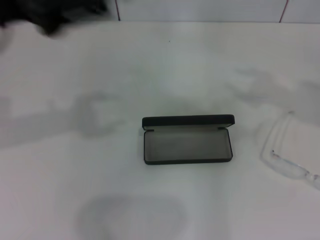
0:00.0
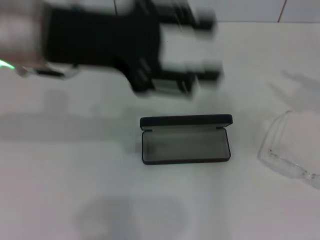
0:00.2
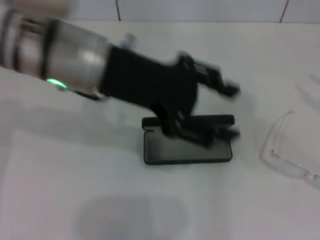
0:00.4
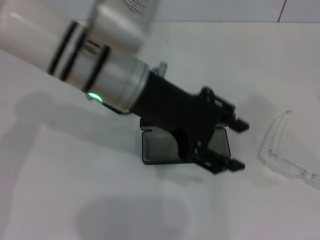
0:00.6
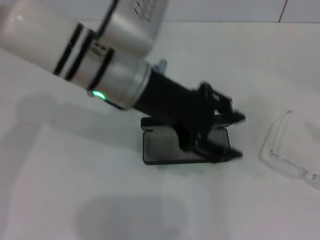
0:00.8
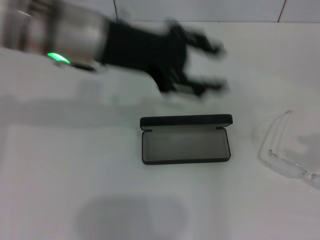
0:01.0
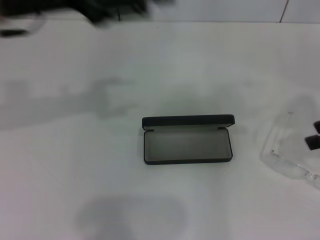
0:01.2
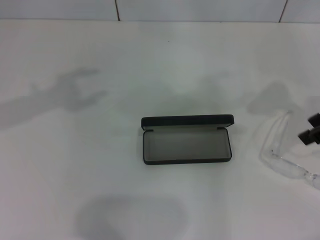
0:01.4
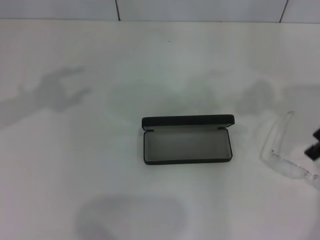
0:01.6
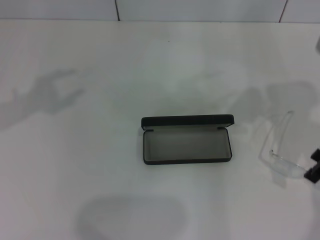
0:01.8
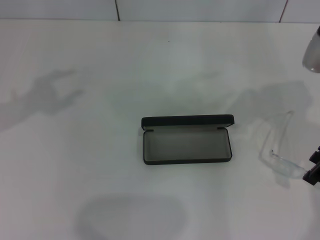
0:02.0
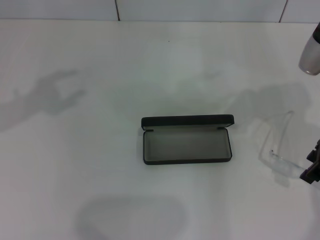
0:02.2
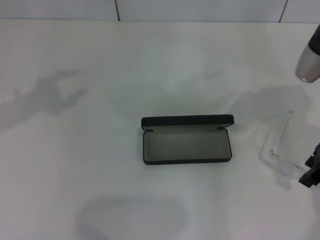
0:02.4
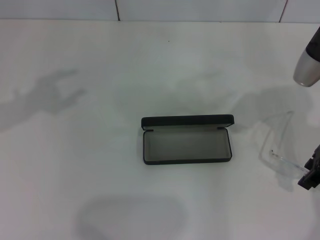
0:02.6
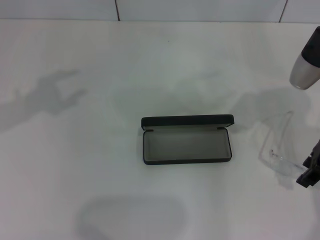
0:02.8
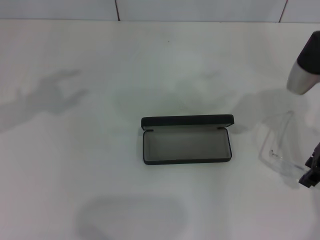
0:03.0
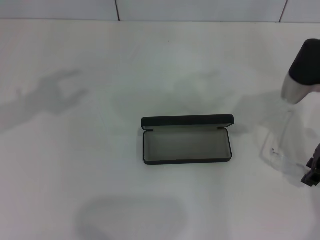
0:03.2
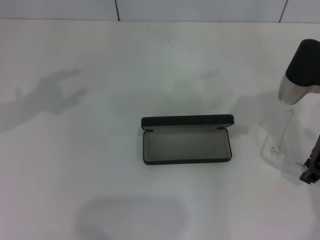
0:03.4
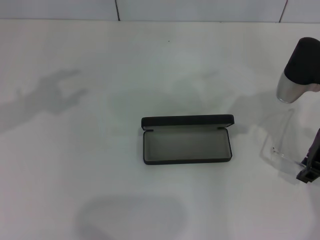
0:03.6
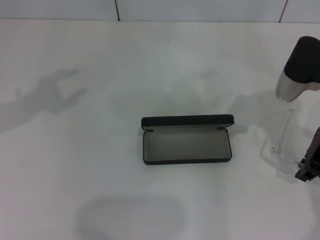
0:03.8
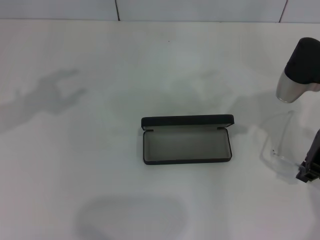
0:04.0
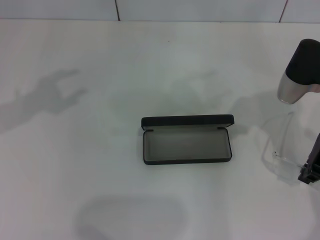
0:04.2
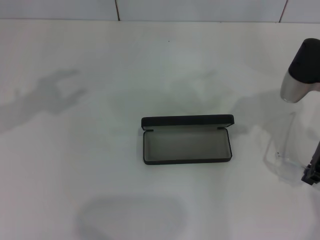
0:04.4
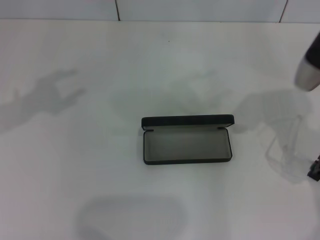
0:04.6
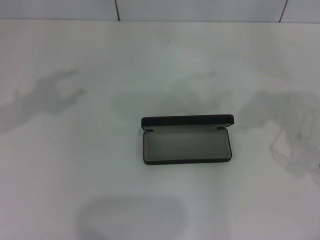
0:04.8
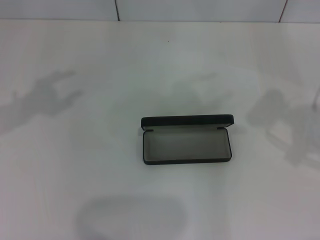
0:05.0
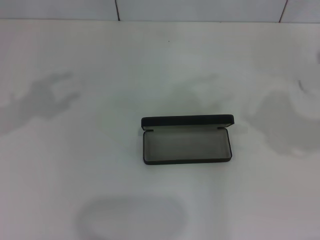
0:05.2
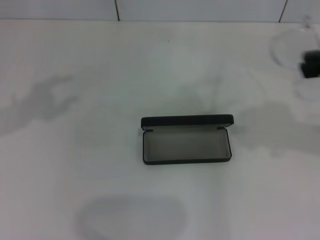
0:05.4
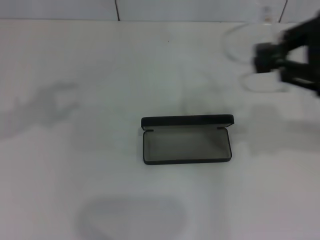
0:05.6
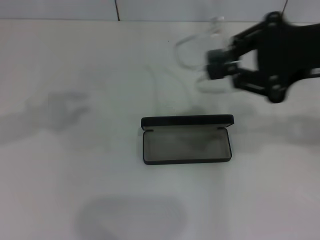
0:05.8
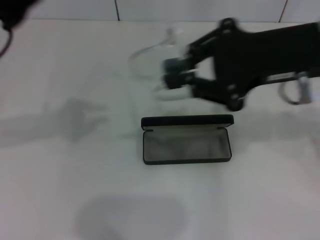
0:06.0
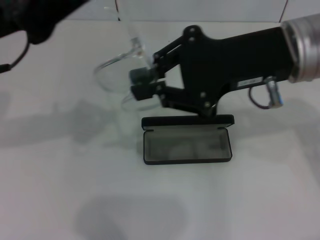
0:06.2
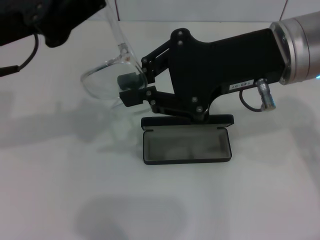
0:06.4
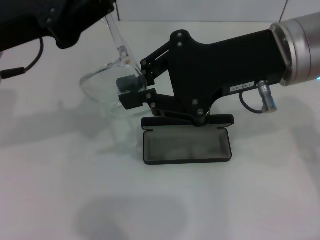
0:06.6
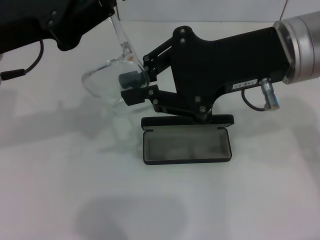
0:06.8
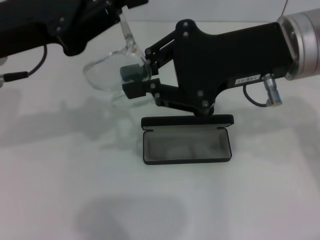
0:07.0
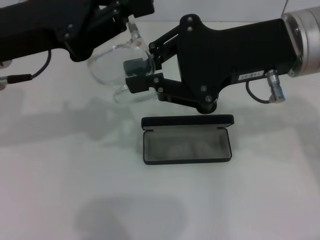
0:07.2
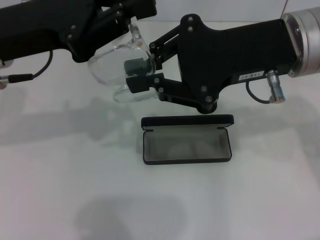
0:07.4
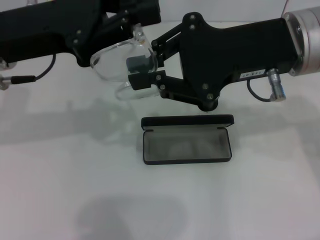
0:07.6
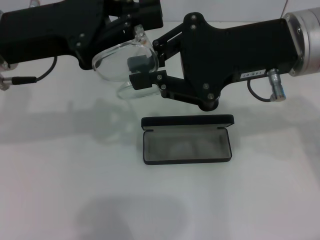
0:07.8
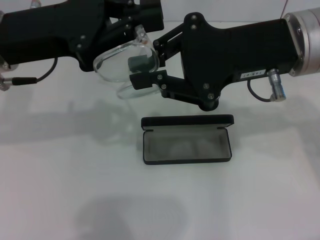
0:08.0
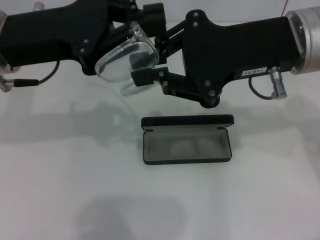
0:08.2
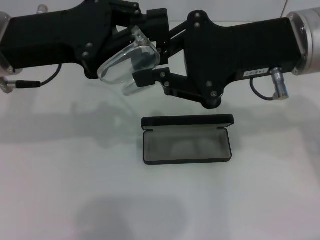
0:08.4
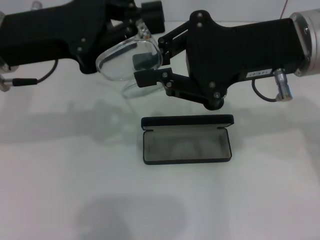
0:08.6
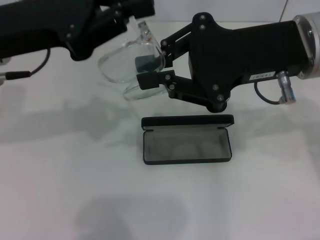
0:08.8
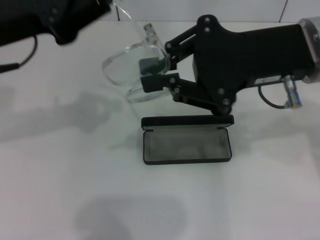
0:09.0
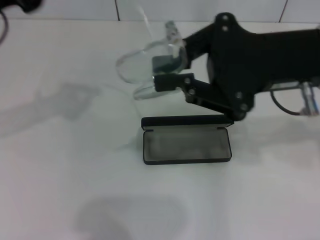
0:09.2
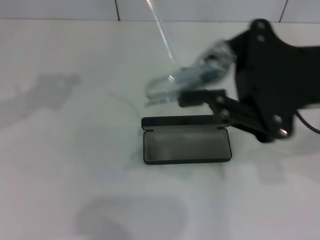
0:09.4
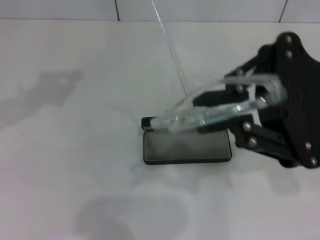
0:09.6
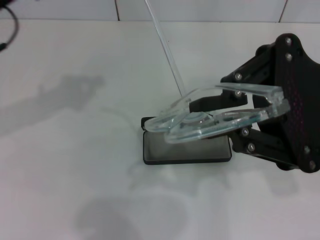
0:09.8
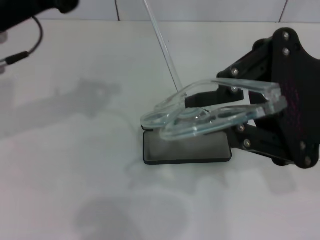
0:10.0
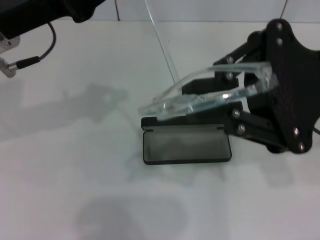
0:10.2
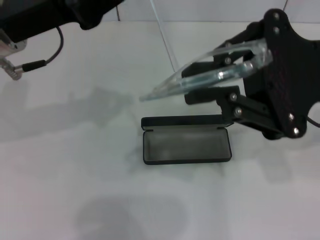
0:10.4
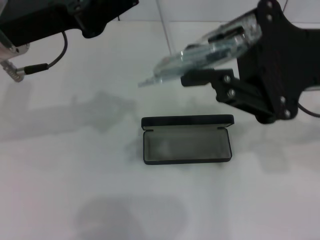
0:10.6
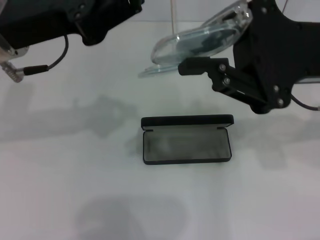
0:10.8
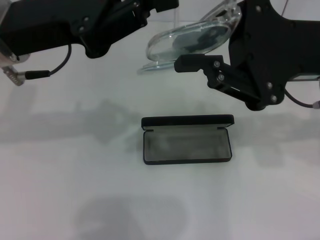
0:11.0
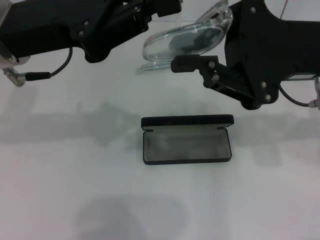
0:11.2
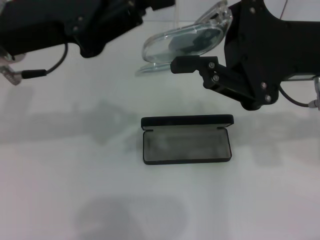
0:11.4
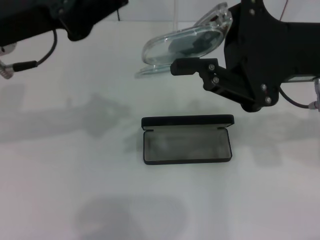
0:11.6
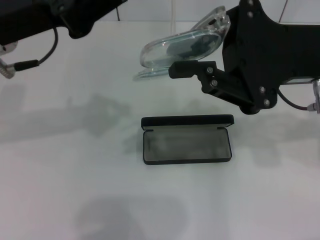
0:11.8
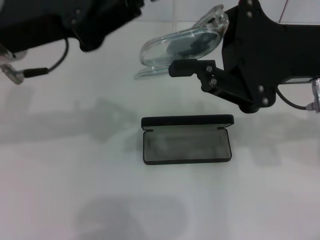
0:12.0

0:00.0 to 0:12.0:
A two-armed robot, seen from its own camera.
Step, 0:00.0 to 0:04.2: Grab the eyeglass frame with your right hand.
0:00.0 to 0:01.6: The right gripper heads to the left, covering roughly 10 cm. The left gripper moves approximately 15 cm to the right and comes back.
0:01.6 to 0:03.0: The right gripper travels downward by roughly 5 cm.
0:03.0 to 0:04.4: The right gripper closes up.
0:04.4 to 0:06.0: The right gripper goes approximately 10 cm upward.
0:06.0 to 0:07.6: The left gripper closes.
0:07.6 to 0:09.0: There are only small adjustments of the grippers.

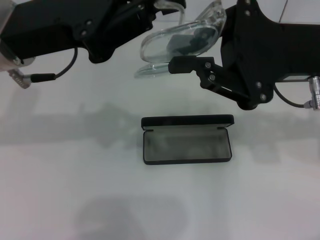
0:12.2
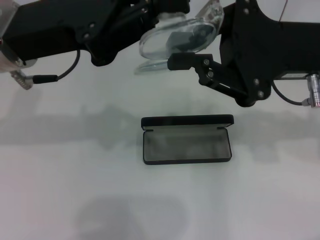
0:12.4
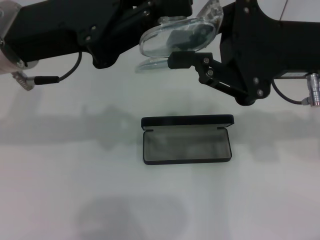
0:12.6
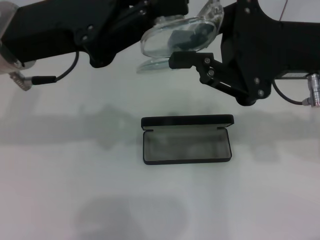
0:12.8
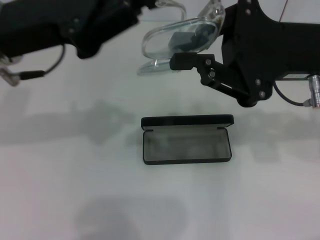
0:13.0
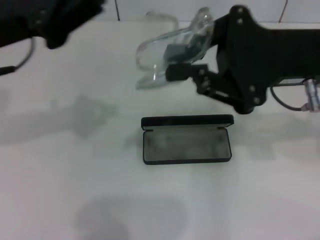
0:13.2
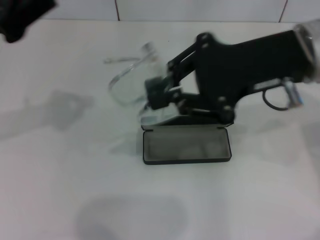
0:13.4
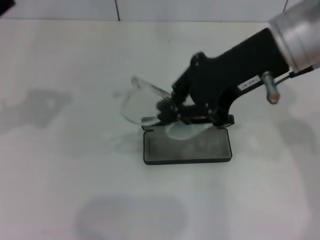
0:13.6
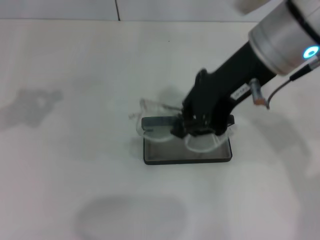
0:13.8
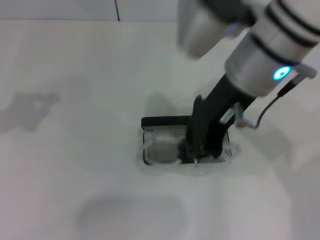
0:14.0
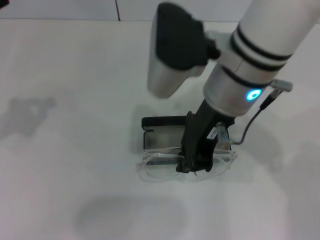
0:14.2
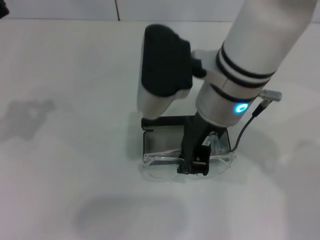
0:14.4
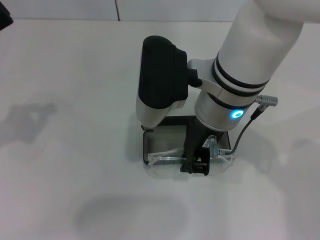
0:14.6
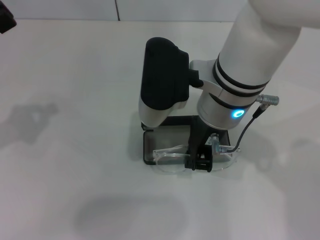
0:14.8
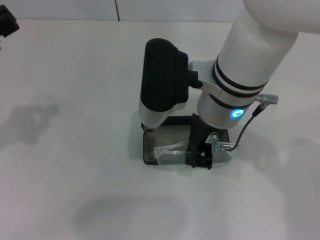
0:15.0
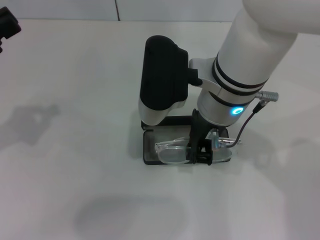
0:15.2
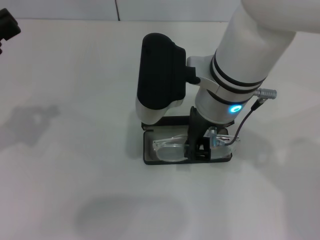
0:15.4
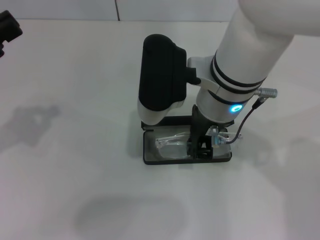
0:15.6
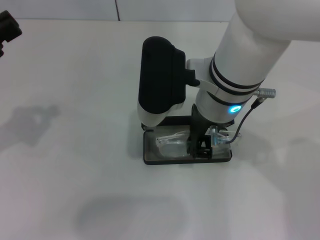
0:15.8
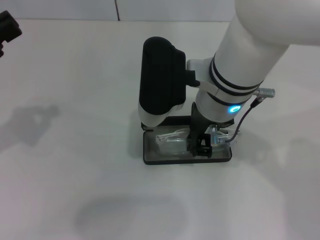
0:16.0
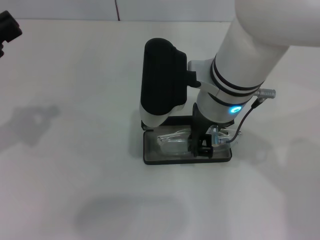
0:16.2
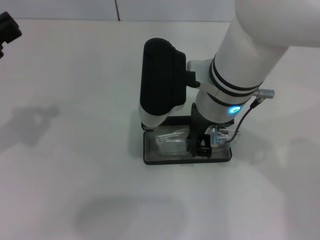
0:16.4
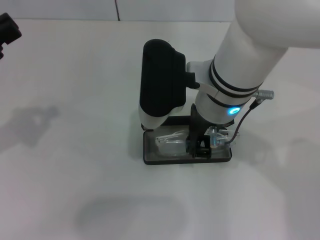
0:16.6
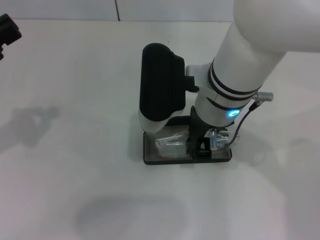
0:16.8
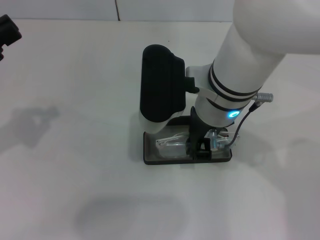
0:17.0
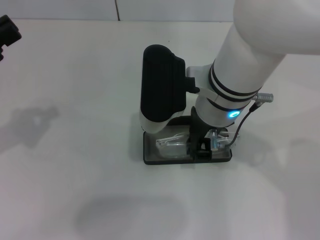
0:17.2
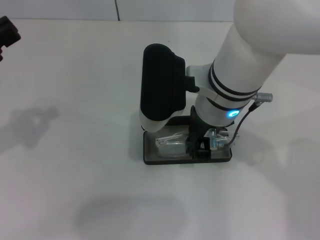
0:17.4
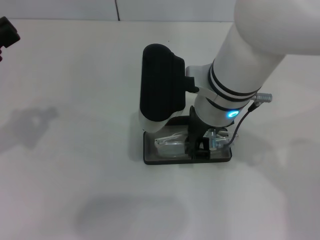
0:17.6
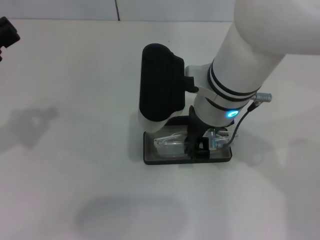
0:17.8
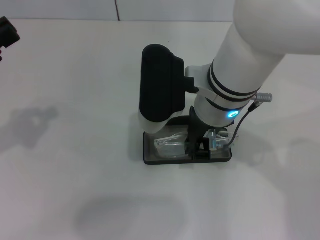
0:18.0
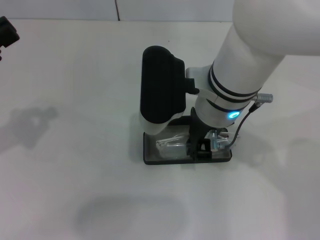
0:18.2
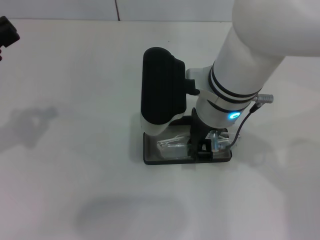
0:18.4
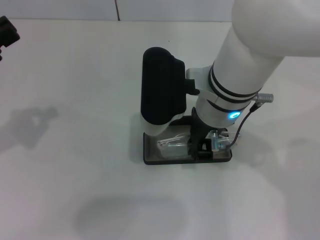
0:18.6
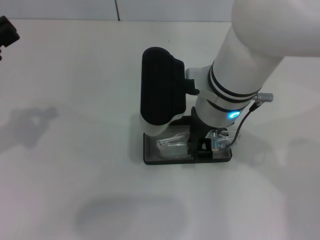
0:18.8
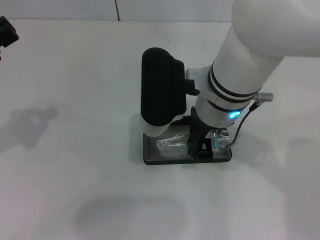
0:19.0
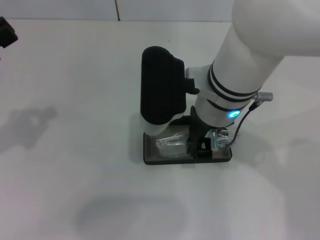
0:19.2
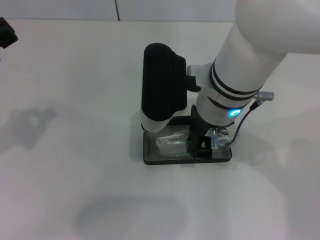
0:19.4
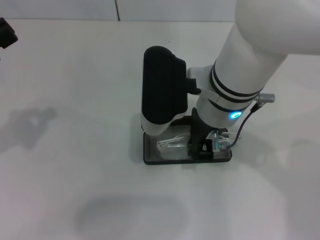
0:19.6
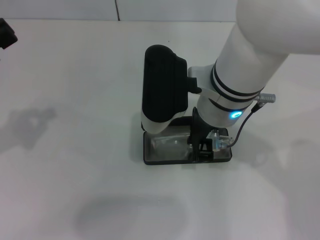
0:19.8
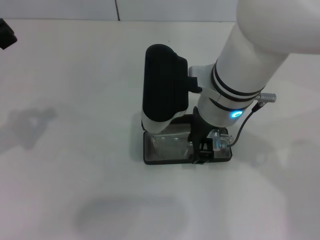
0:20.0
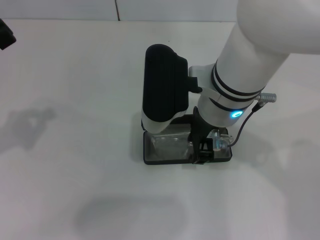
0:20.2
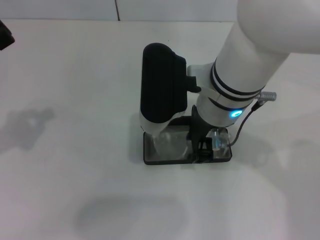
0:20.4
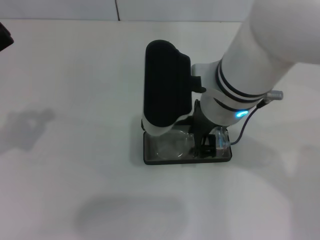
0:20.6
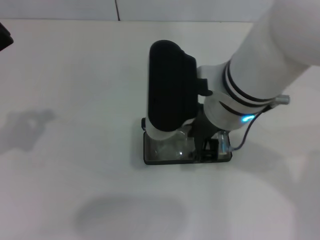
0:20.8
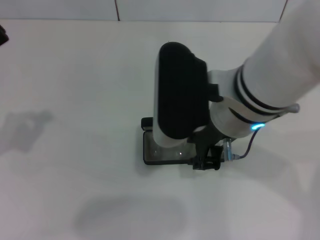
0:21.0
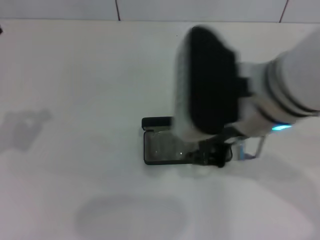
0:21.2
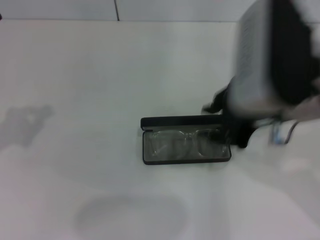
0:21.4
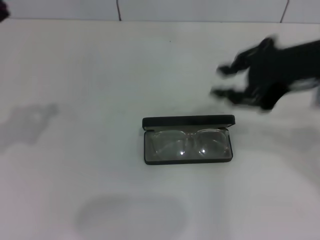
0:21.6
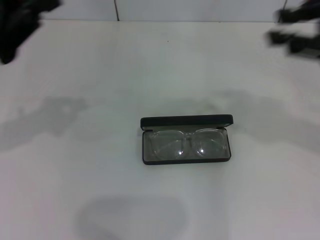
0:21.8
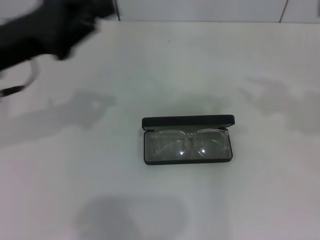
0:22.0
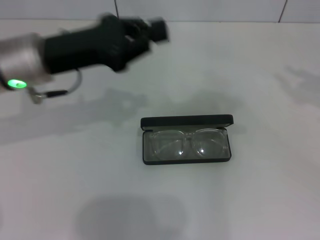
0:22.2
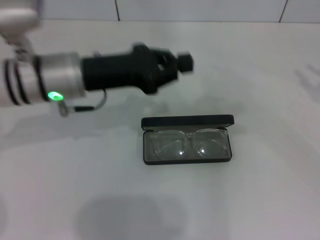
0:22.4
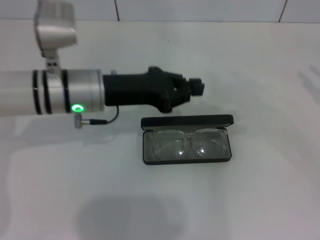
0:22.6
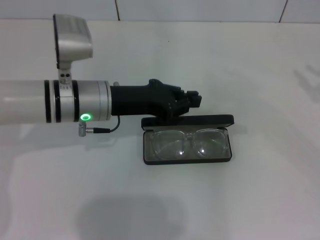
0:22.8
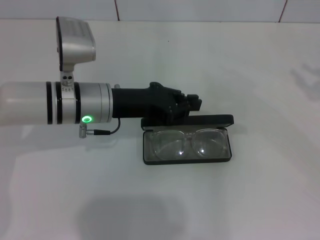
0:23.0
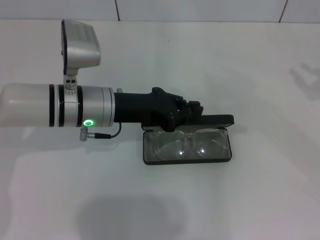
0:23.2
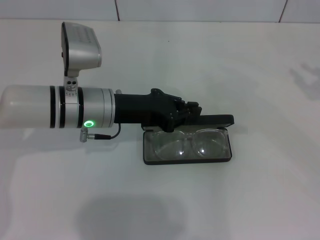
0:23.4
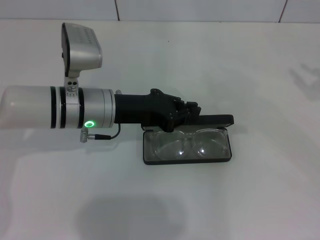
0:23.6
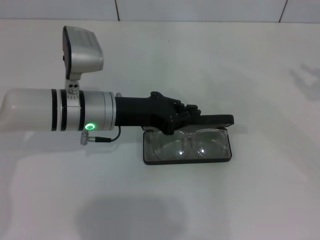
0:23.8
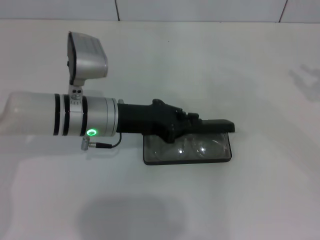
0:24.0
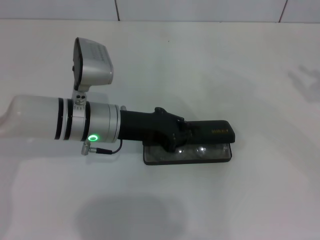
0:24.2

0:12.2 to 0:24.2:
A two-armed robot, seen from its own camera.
Step, 0:13.0 to 0:20.6: Put the glasses into the case with your right hand.
0:12.2 to 0:13.8: The right gripper shifts about 5 cm to the left; the left gripper heads to the left, covering approximately 15 cm.
0:13.8 to 0:15.2: The right gripper moves downward and to the left, some 10 cm; the left gripper moves about 5 cm.
0:15.2 to 0:16.6: Neither gripper changes place.
0:16.6 to 0:19.8: Both grippers stay put.
0:19.8 to 0:21.2: The right gripper ends up some 5 cm from where it was.
0:21.2 to 0:22.6: The left gripper is displaced to the right and forward by about 20 cm; the right gripper goes approximately 35 cm to the right.
0:22.6 to 0:24.2: The grippers move only a little.
